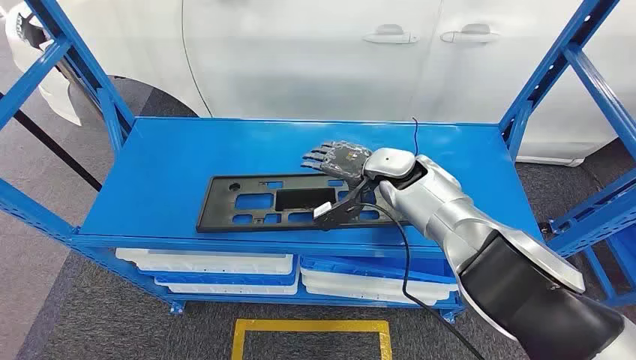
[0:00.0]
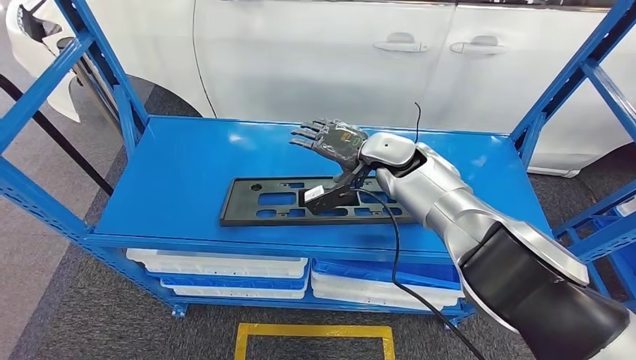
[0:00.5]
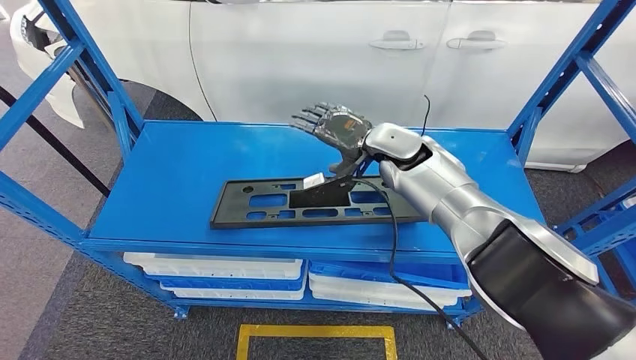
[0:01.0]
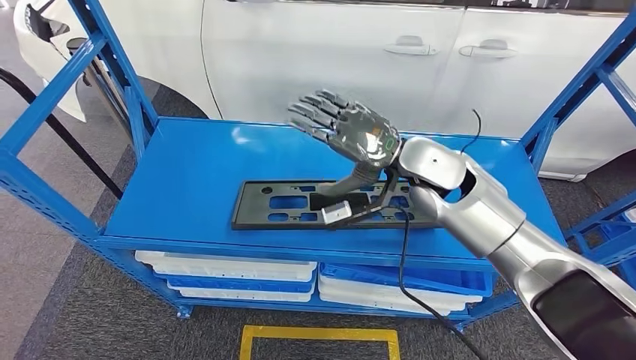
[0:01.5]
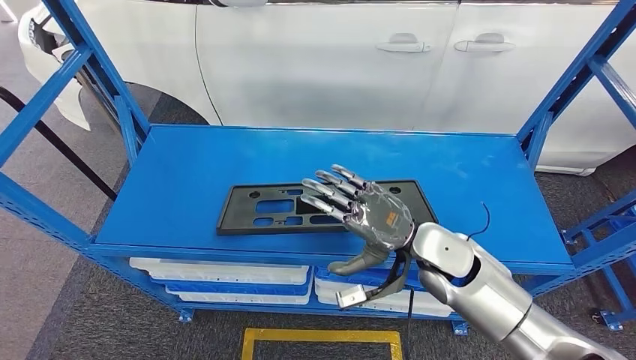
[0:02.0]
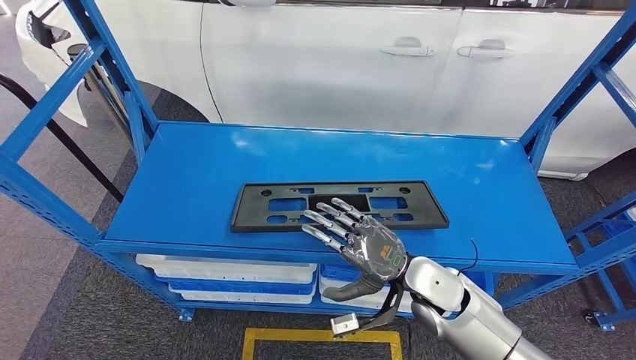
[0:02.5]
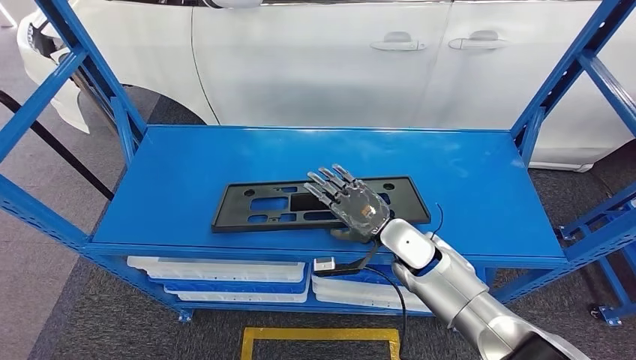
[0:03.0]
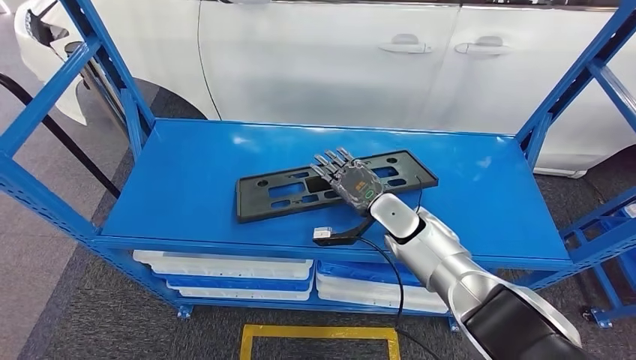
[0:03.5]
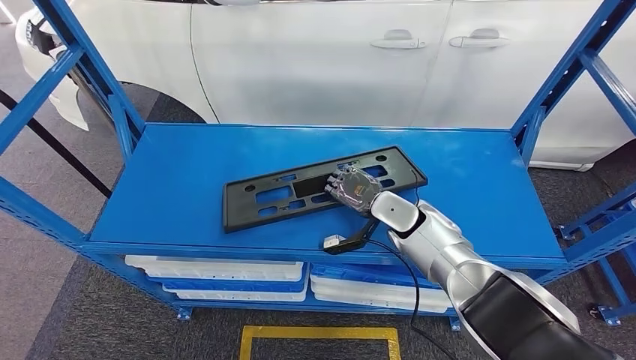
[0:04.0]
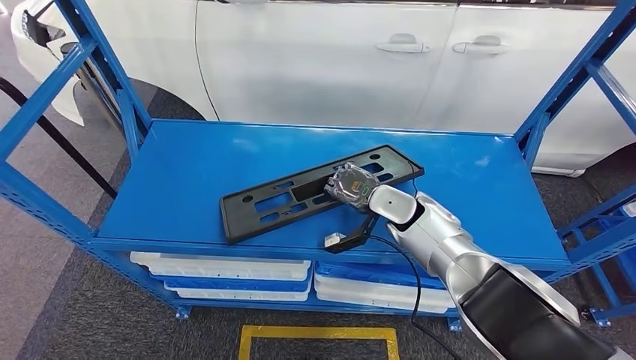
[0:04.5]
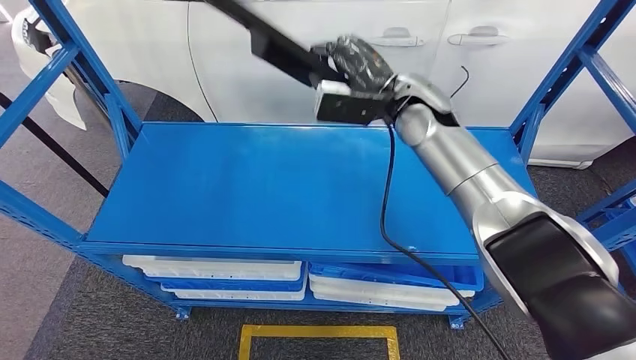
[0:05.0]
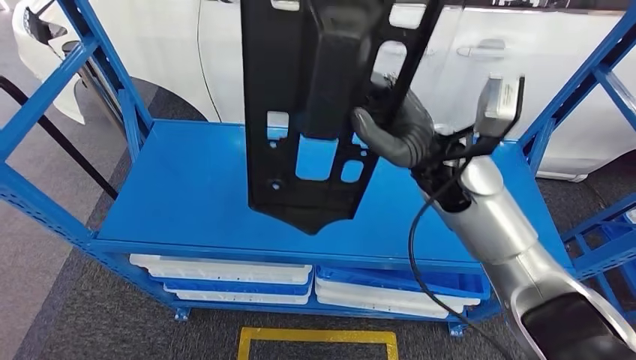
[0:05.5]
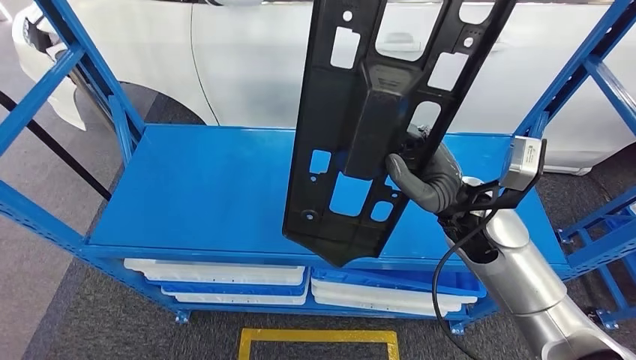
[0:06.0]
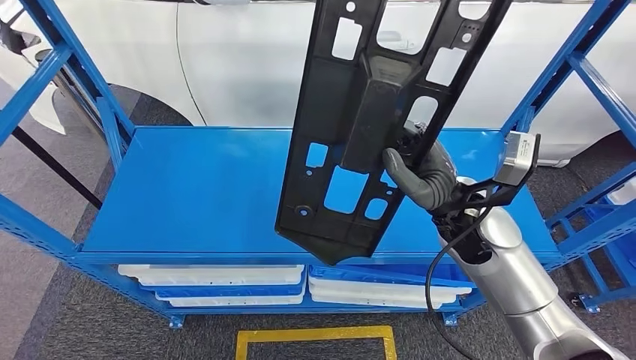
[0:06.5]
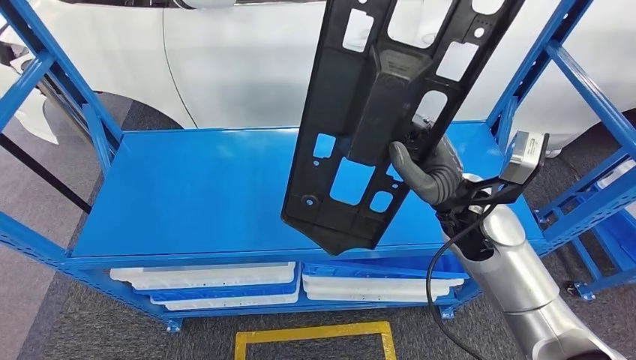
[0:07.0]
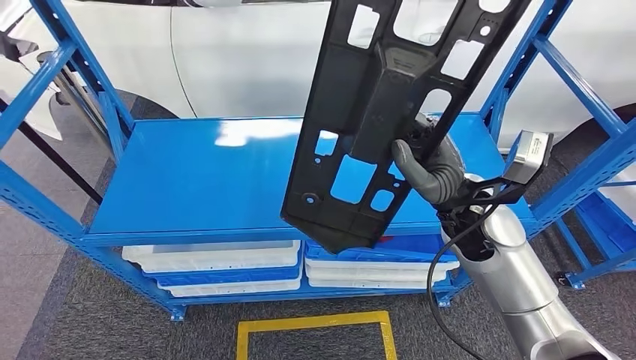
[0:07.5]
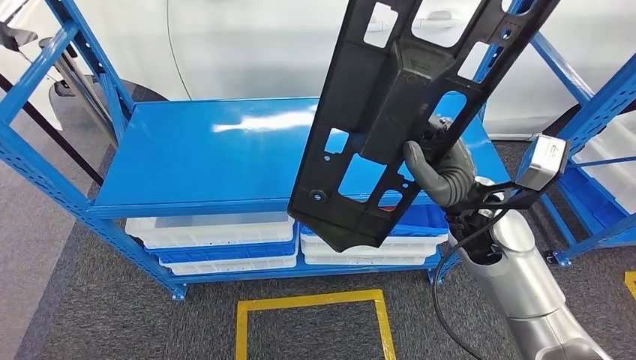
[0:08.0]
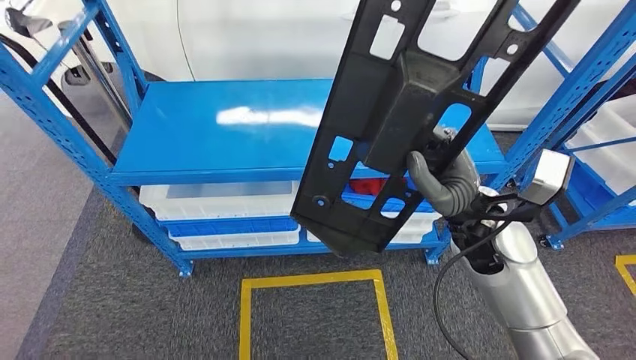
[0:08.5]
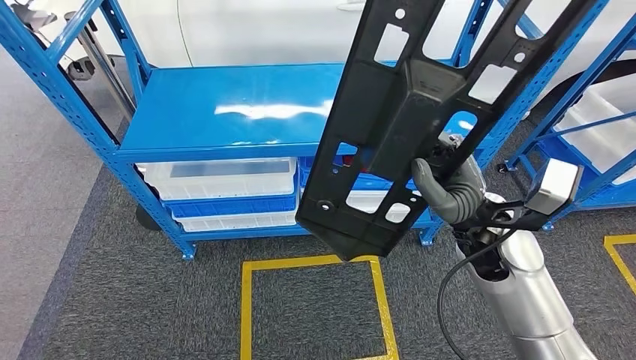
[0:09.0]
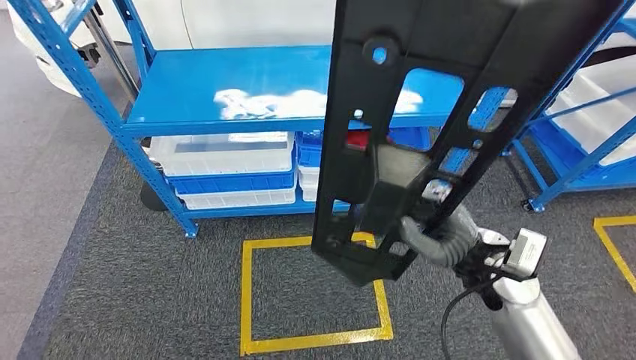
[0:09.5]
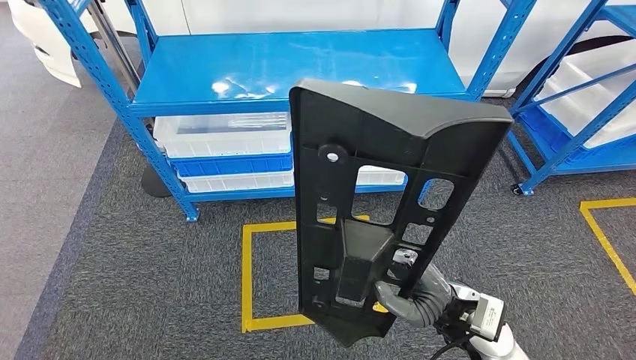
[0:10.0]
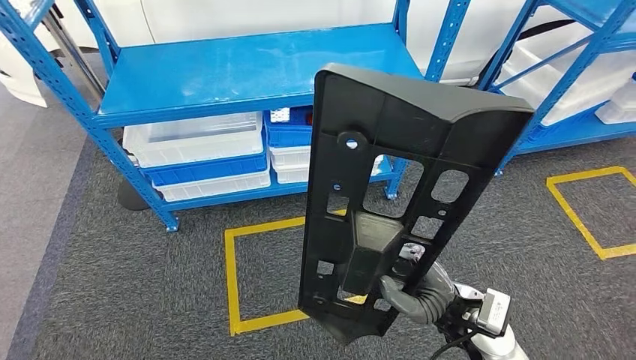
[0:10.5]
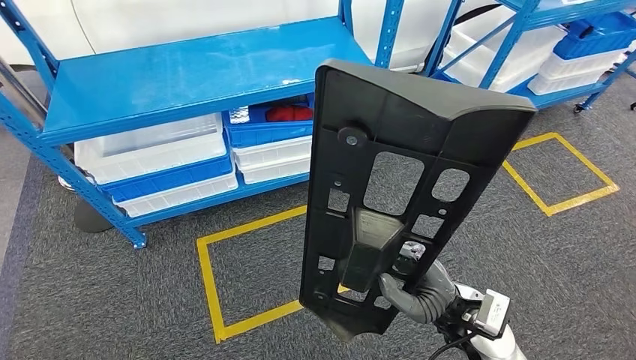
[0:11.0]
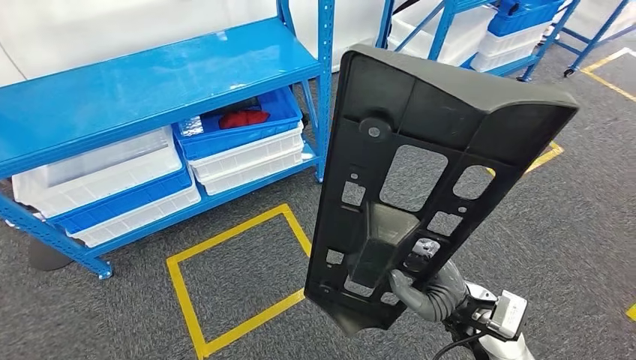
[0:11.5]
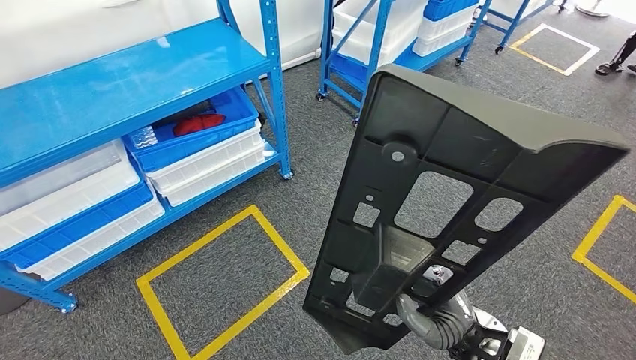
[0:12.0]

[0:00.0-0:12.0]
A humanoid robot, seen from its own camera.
Step, 0:00.0 to 0:06.5: Pick up the large material from the shelf.

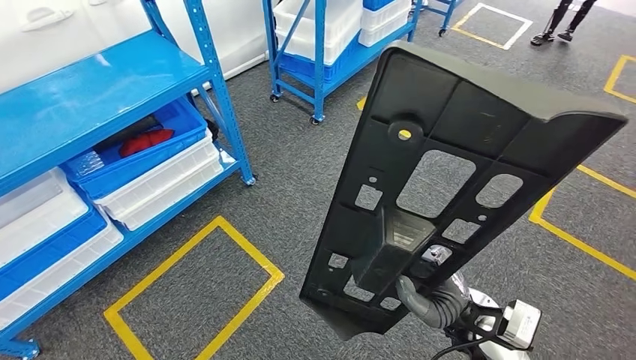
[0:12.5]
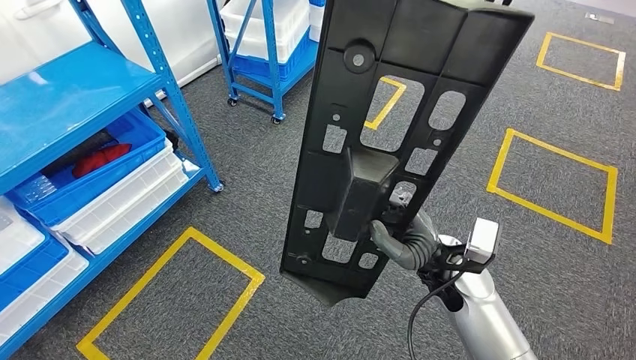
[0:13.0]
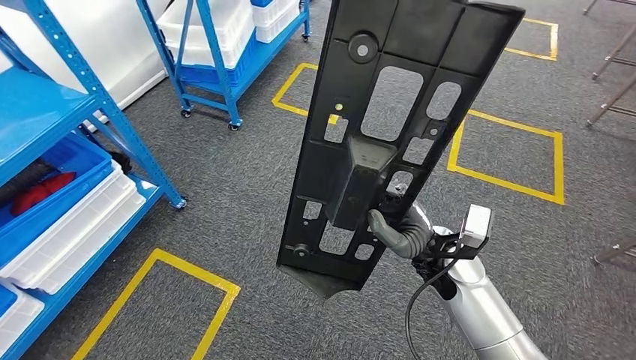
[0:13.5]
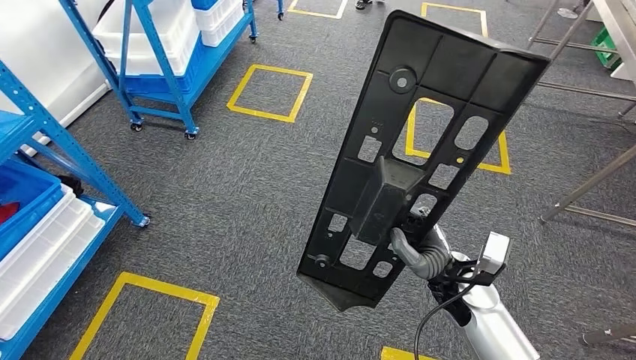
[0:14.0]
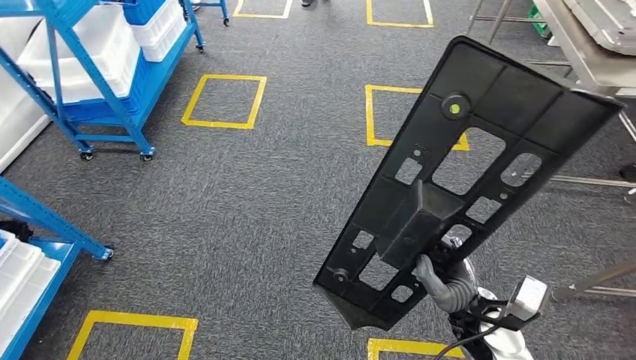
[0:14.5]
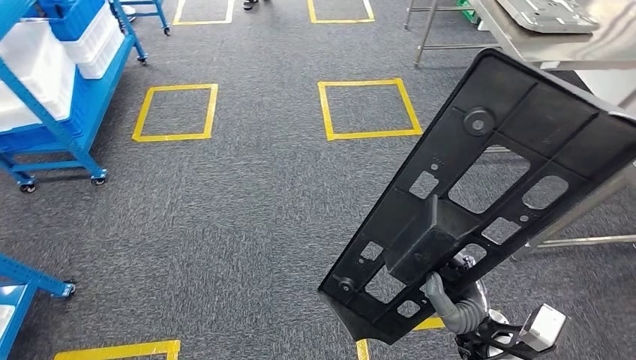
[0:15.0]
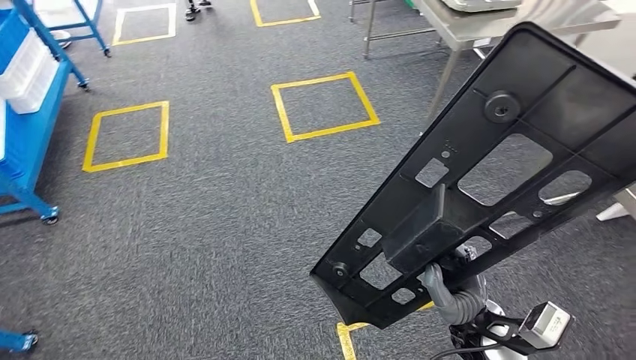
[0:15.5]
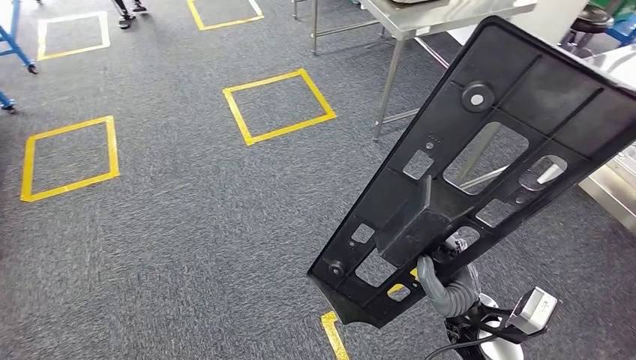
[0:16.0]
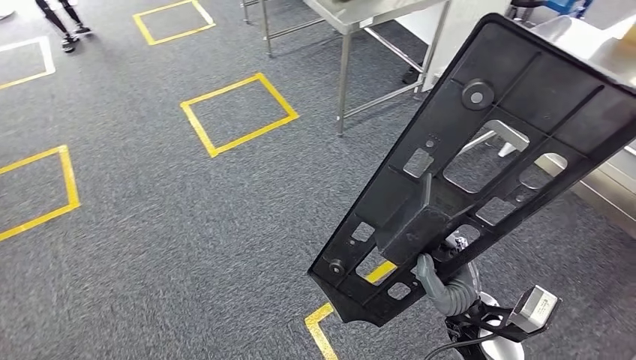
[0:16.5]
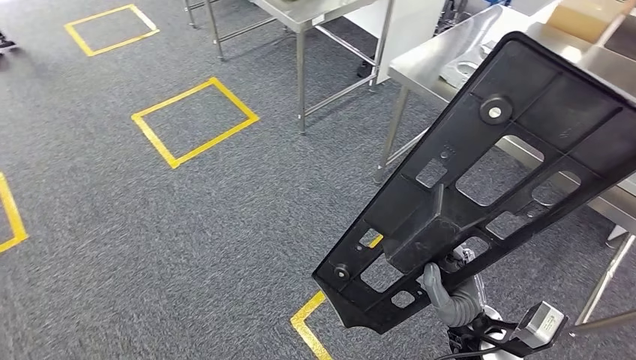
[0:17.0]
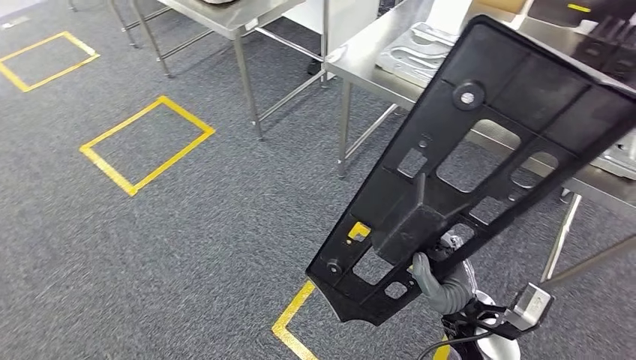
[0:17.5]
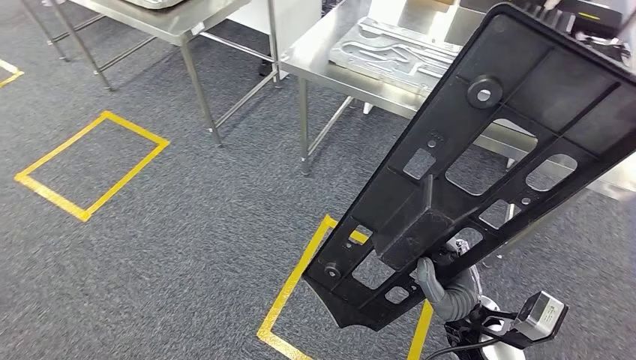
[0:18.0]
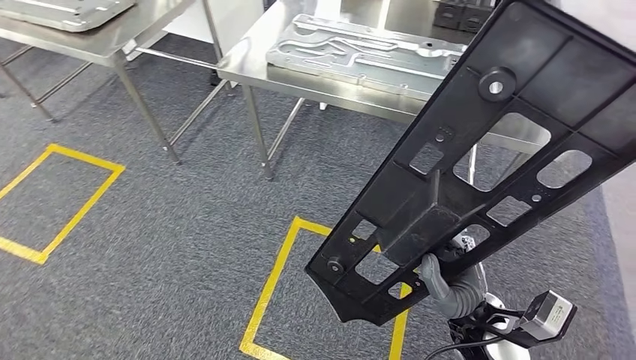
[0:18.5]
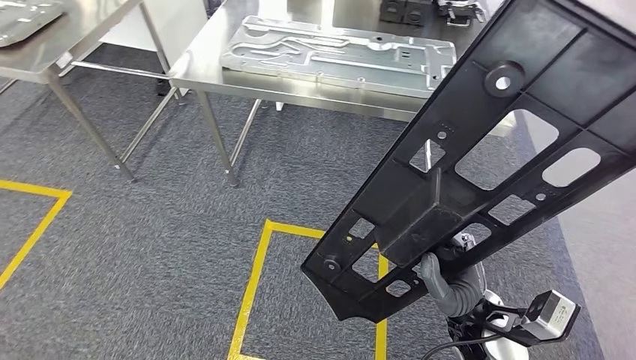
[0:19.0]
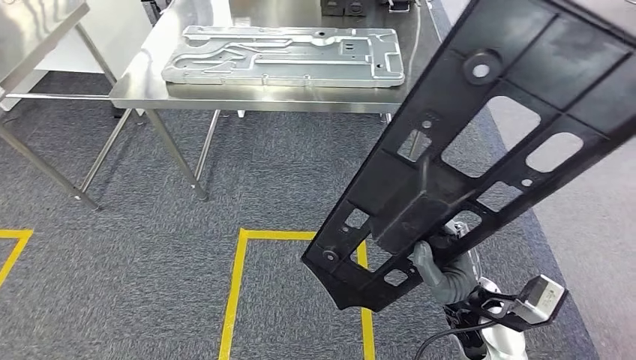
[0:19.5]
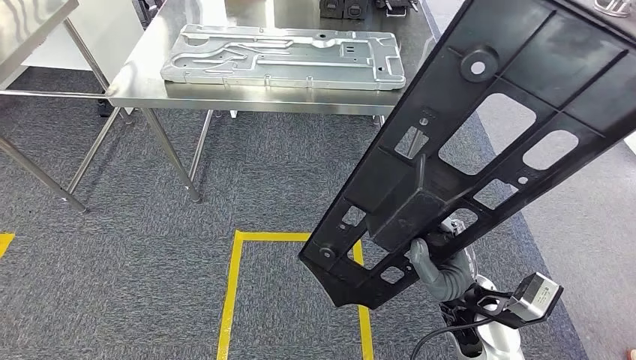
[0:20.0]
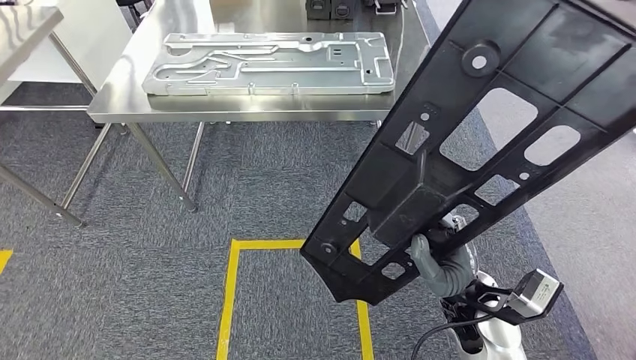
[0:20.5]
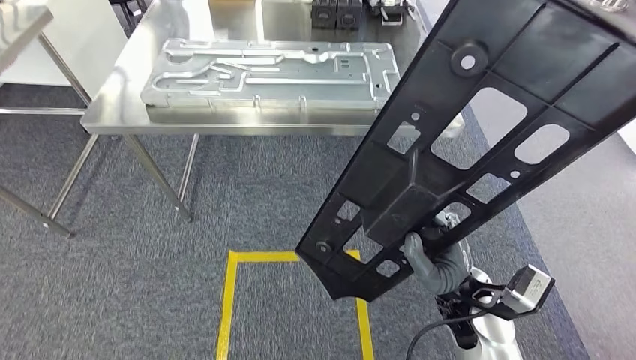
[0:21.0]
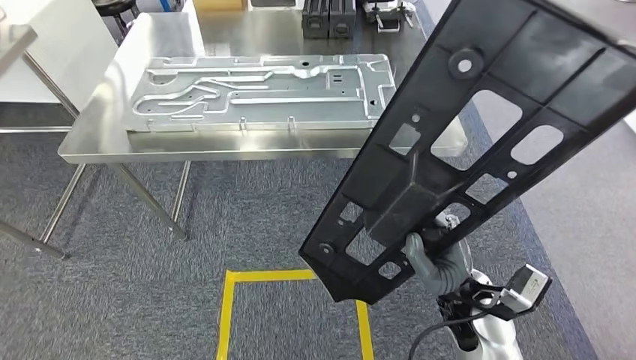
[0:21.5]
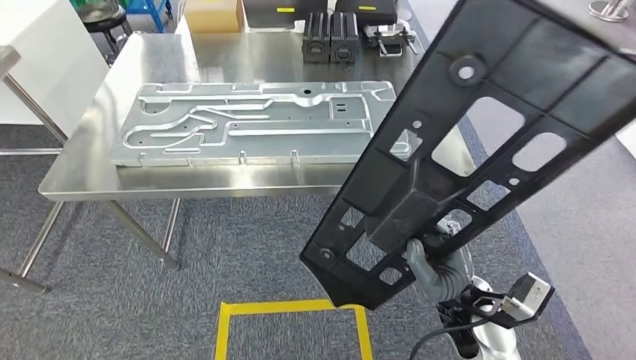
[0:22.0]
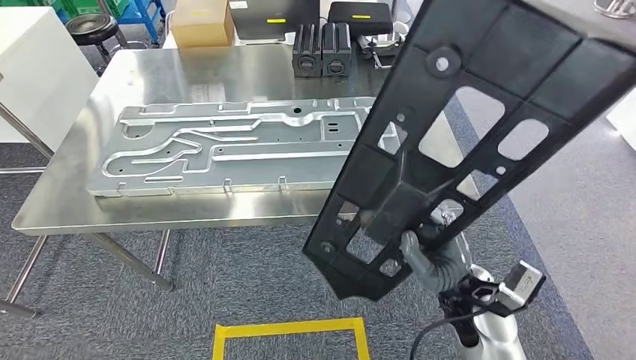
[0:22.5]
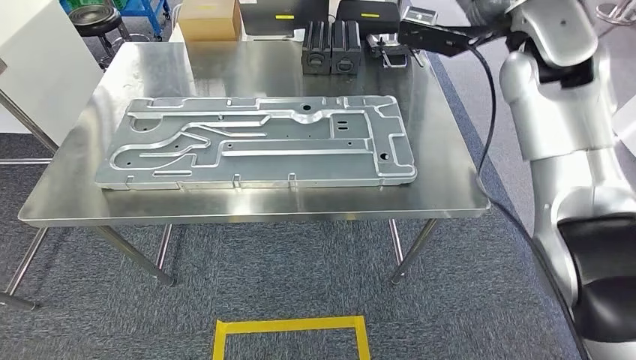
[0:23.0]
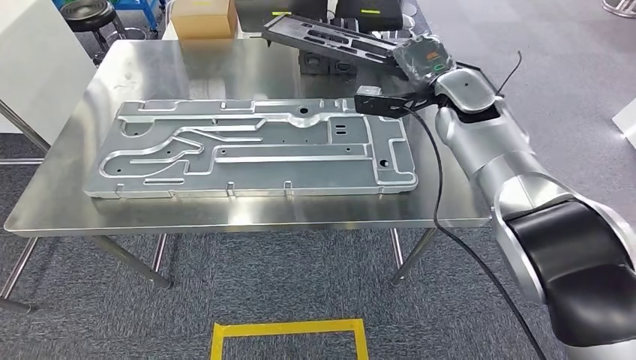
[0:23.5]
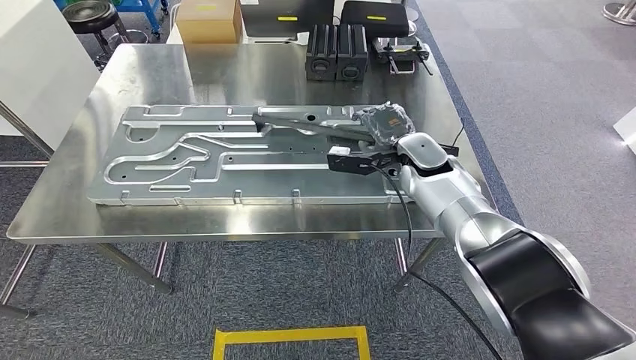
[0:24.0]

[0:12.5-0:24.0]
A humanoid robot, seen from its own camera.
Step, 0:12.5 to 0:23.0: Move the large material to the front of the workbench.
